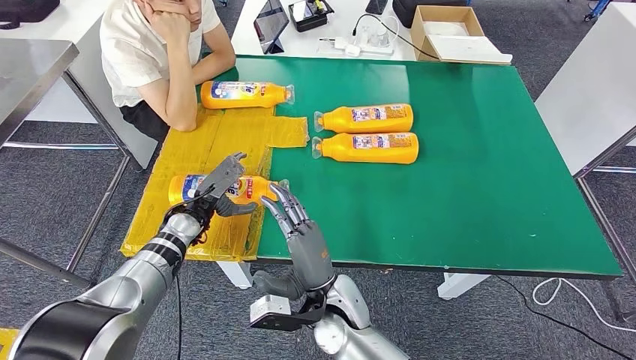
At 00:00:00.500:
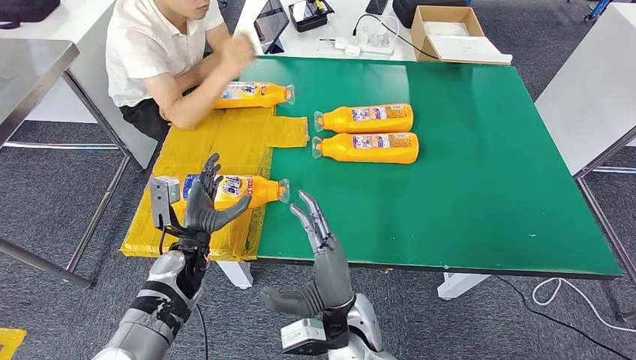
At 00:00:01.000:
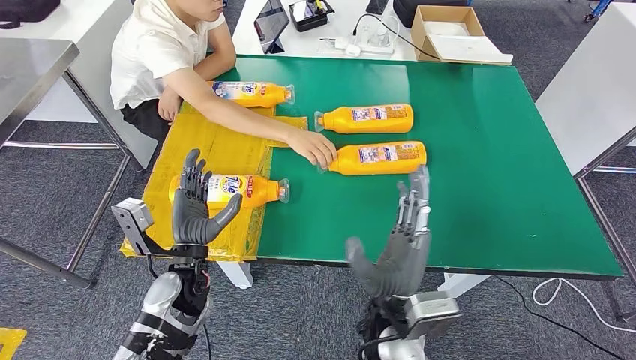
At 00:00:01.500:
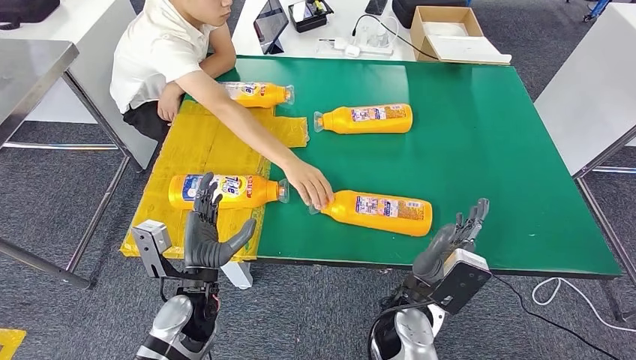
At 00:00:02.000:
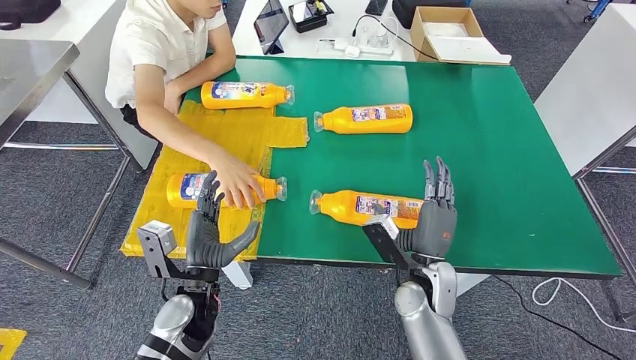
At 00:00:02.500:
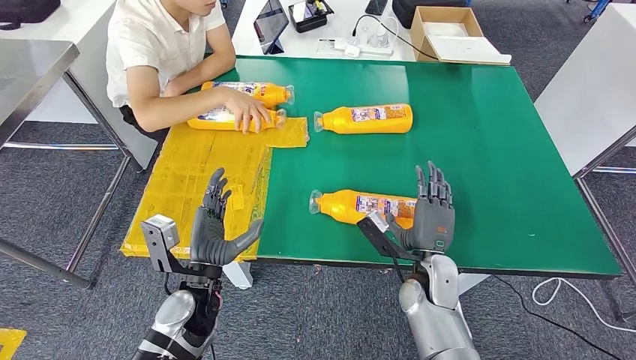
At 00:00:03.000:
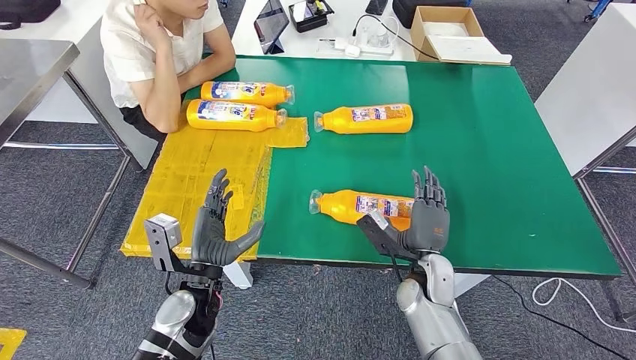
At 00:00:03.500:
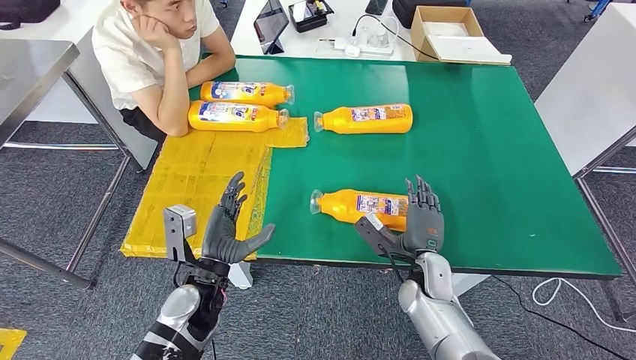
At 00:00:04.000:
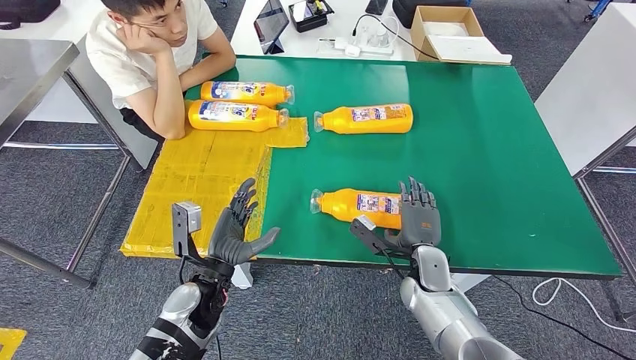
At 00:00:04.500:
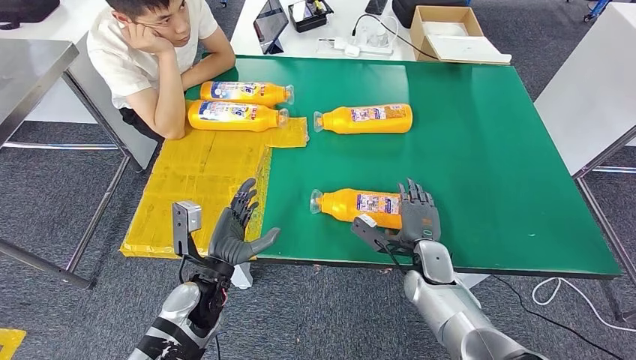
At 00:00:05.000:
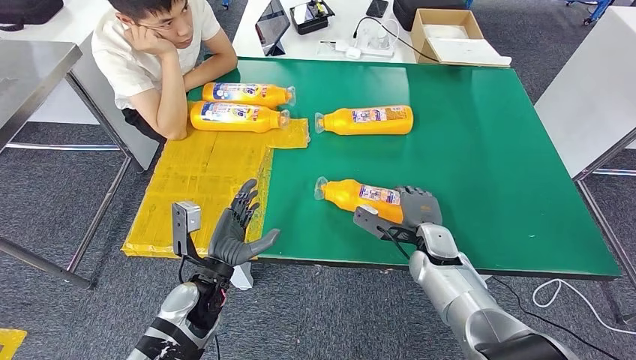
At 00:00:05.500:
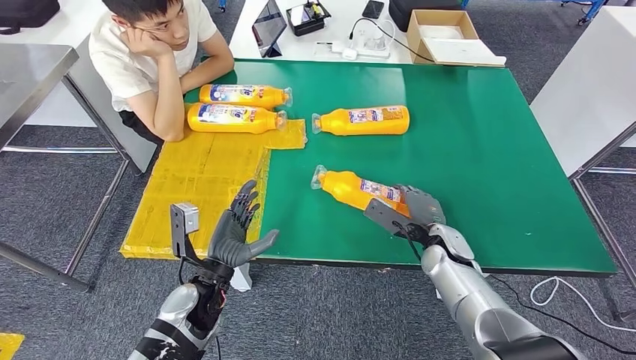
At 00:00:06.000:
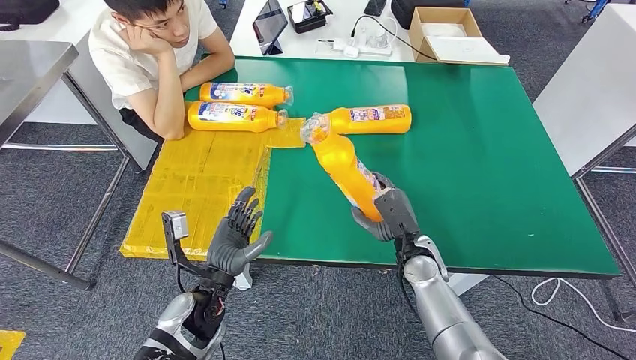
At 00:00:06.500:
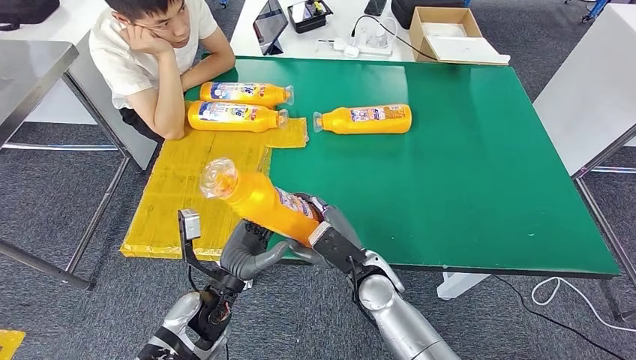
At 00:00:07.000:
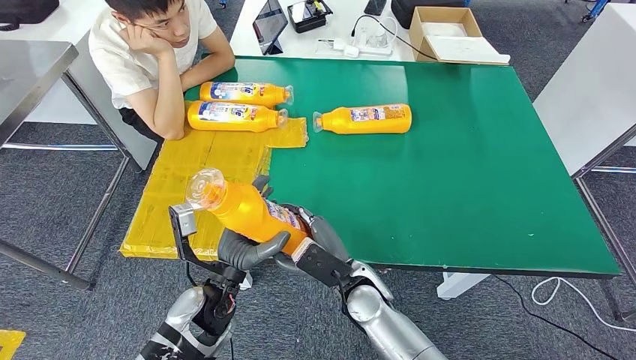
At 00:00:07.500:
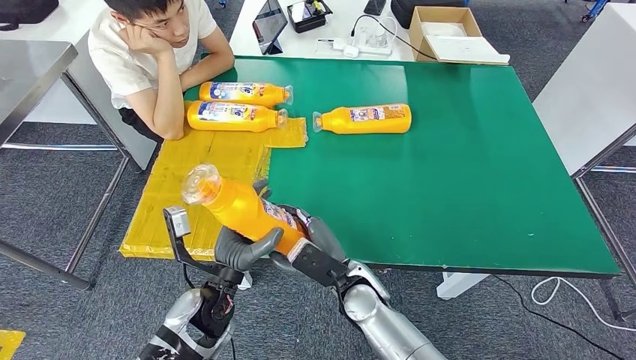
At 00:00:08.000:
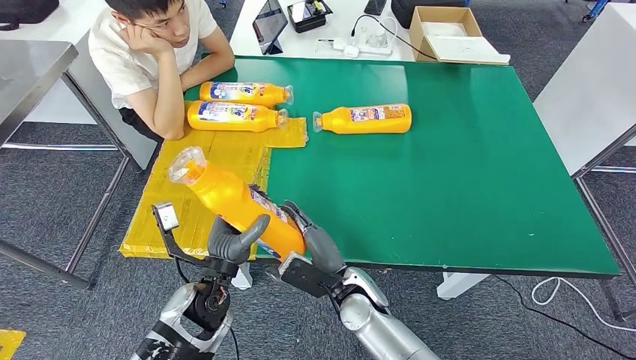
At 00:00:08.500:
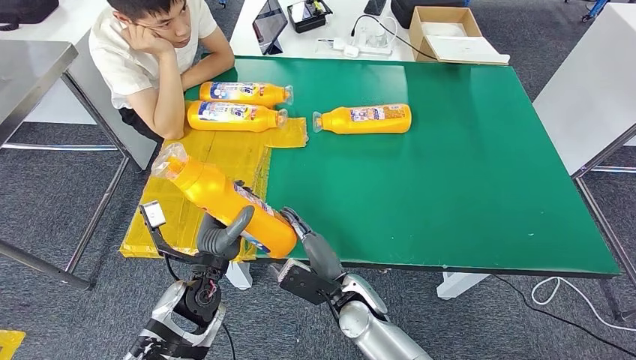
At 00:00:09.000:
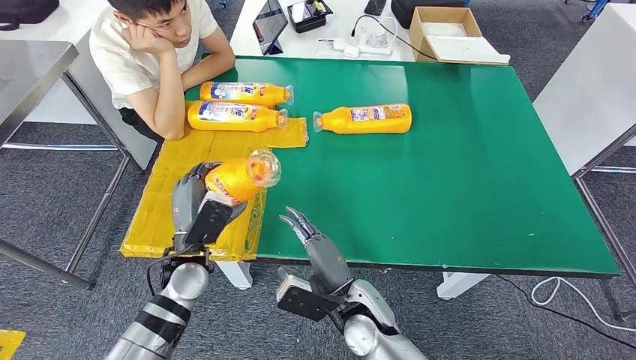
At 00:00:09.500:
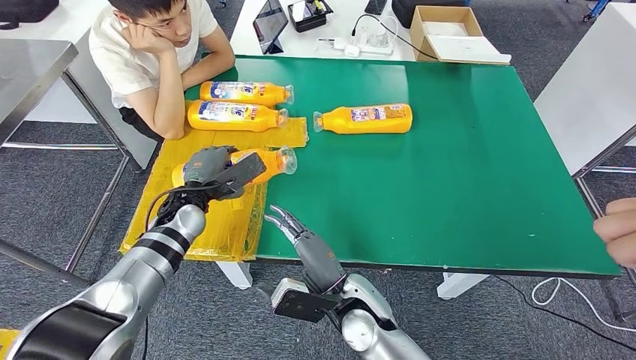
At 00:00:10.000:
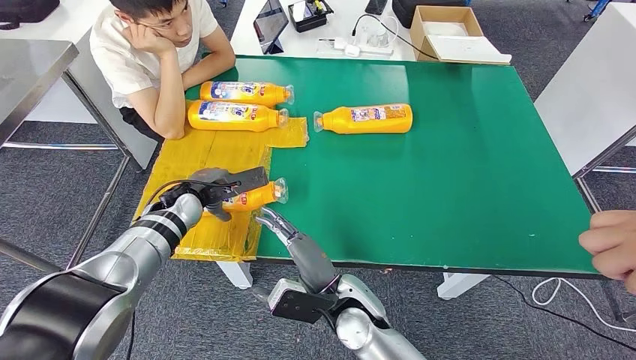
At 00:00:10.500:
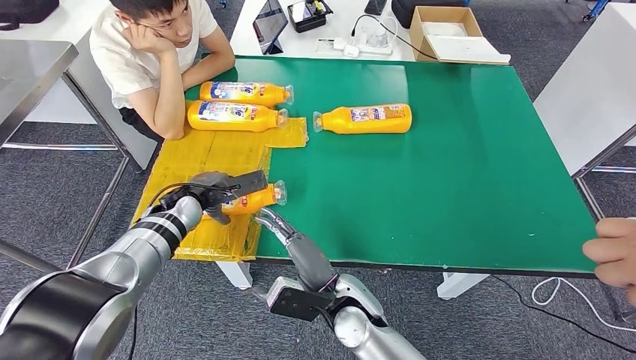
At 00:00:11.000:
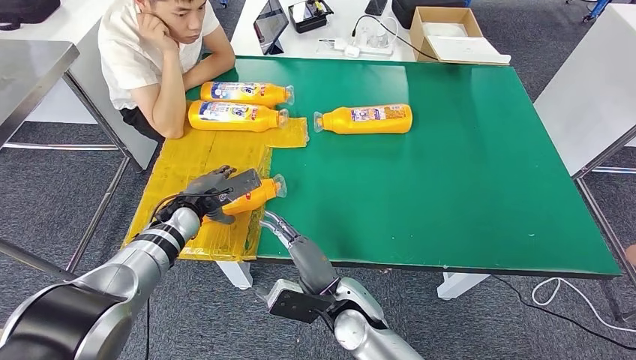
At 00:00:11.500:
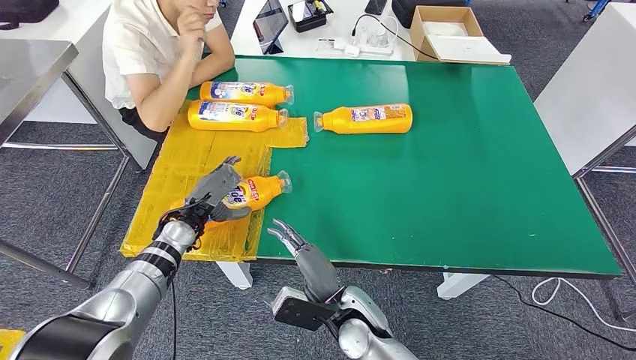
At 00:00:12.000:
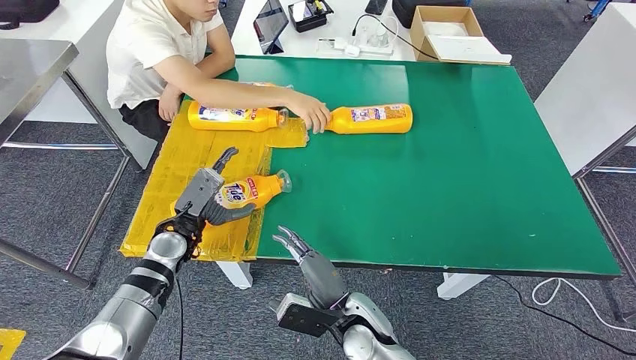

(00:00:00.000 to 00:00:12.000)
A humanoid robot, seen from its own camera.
Step, 00:00:02.000 - 00:00:06.000: Pick up the fast-moving consumer goods bottle from the table.
00:00:02.000 - 00:00:04.000: The right hand changes place by about 5 cm.
00:00:06.000 - 00:00:08.000: The right hand is displaced to the left and backward by some 15 cm.
00:00:08.000 - 00:00:10.000: The left hand is displaced forward and to the left by roughly 20 cm.
00:00:10.000 - 00:00:12.000: The left hand goes roughly 5 cm backward.

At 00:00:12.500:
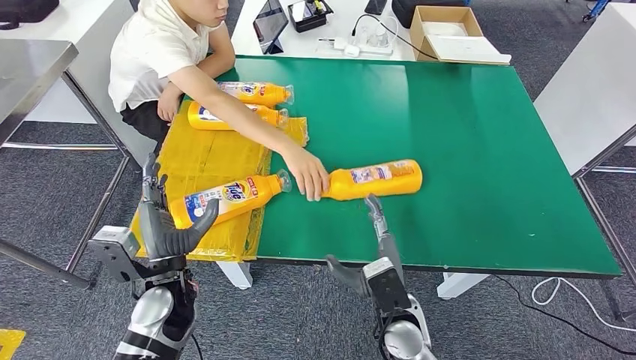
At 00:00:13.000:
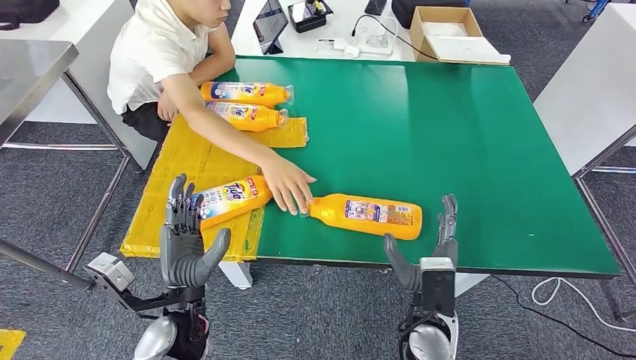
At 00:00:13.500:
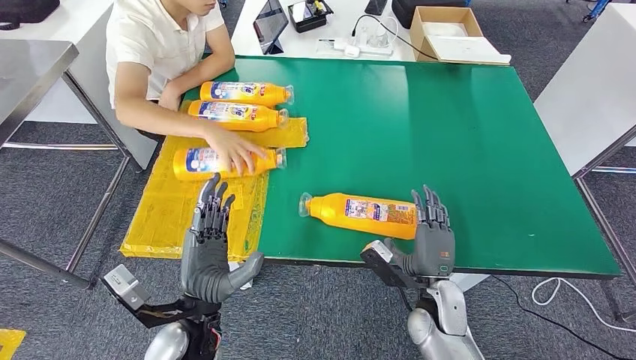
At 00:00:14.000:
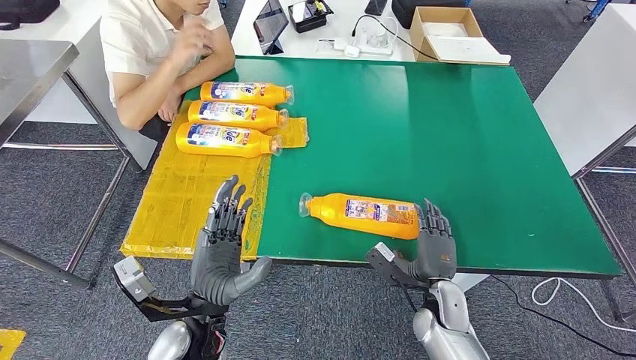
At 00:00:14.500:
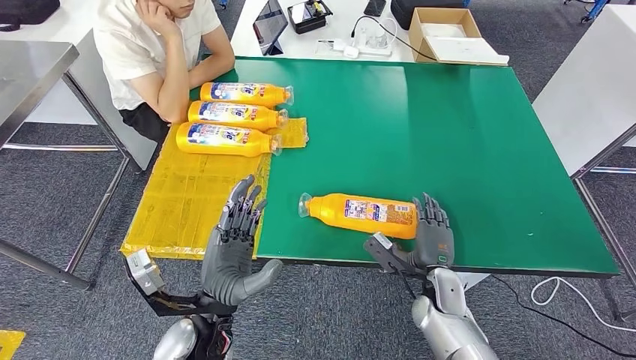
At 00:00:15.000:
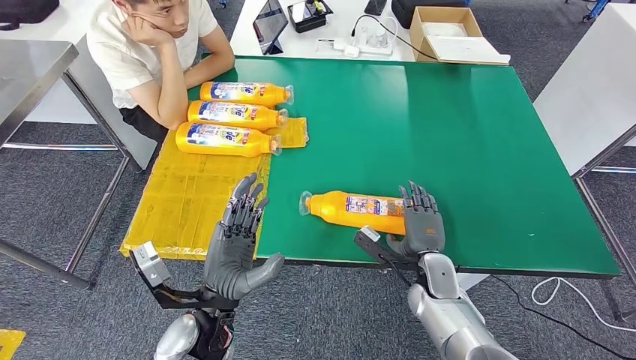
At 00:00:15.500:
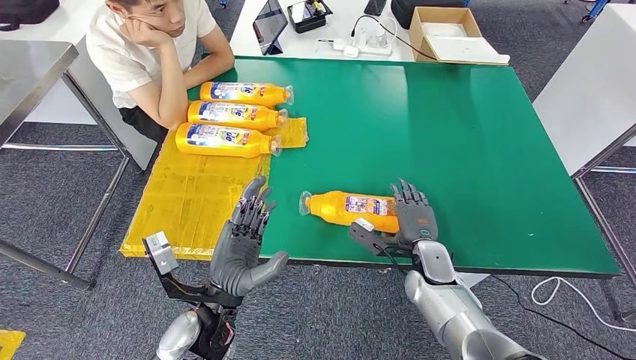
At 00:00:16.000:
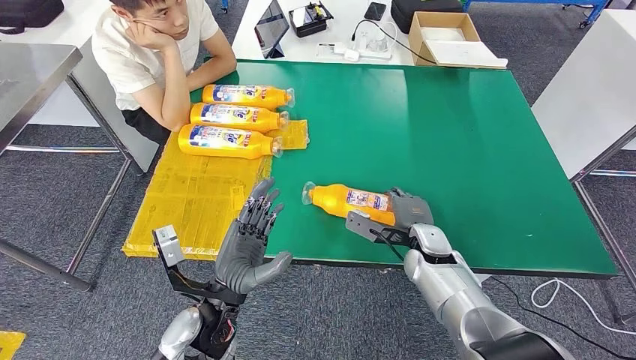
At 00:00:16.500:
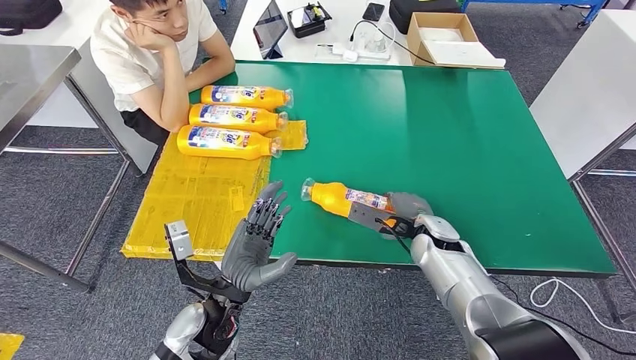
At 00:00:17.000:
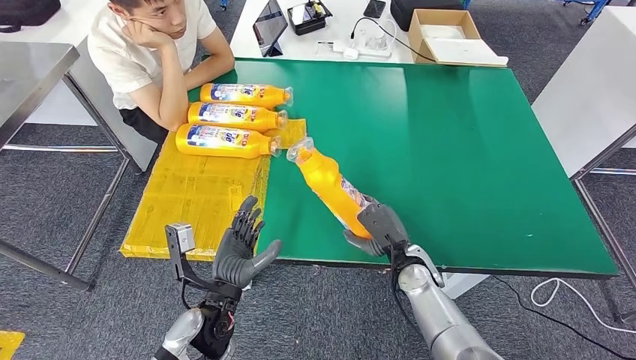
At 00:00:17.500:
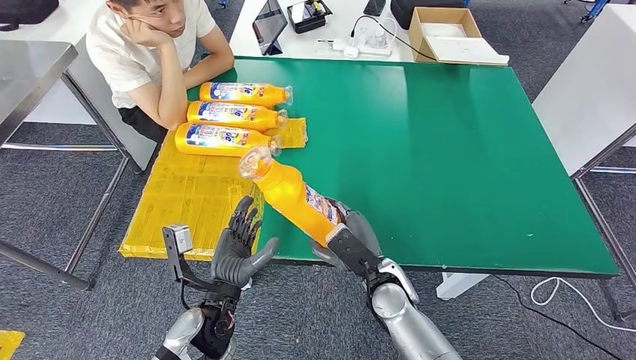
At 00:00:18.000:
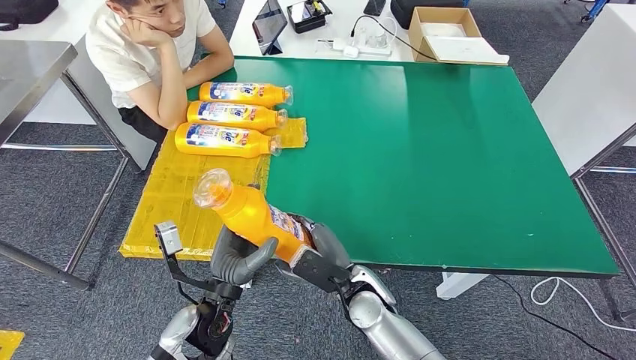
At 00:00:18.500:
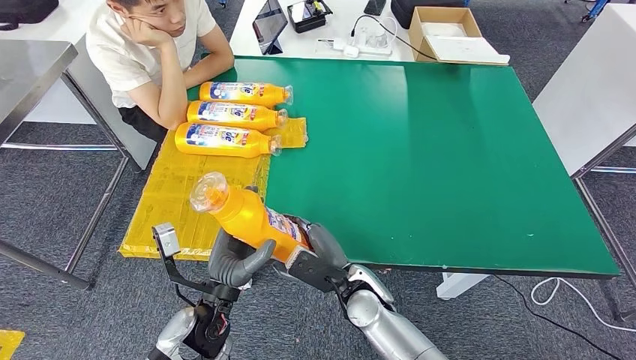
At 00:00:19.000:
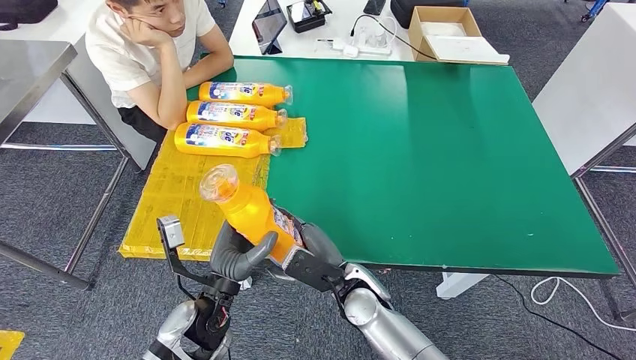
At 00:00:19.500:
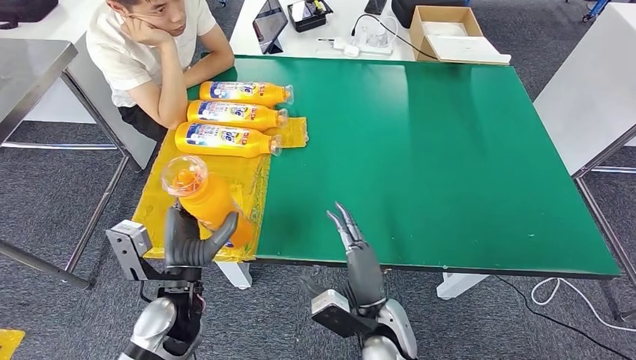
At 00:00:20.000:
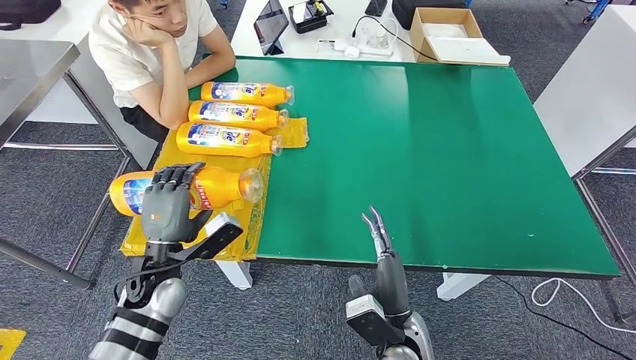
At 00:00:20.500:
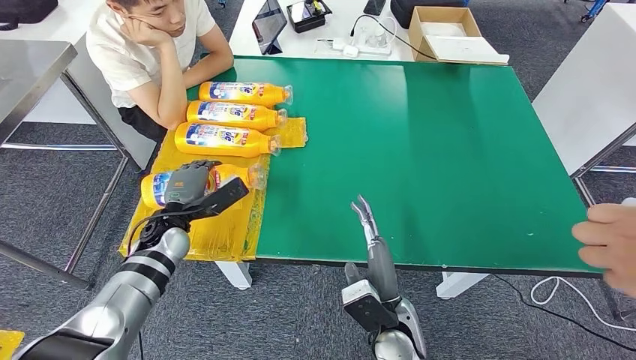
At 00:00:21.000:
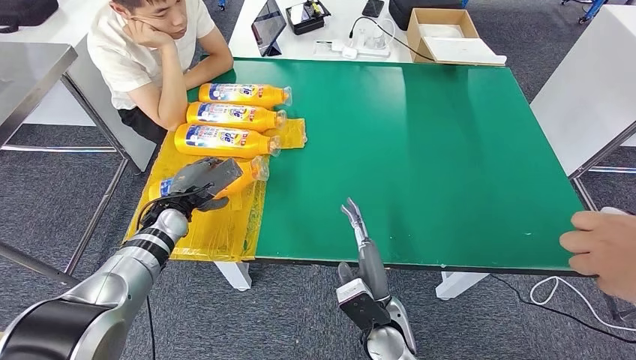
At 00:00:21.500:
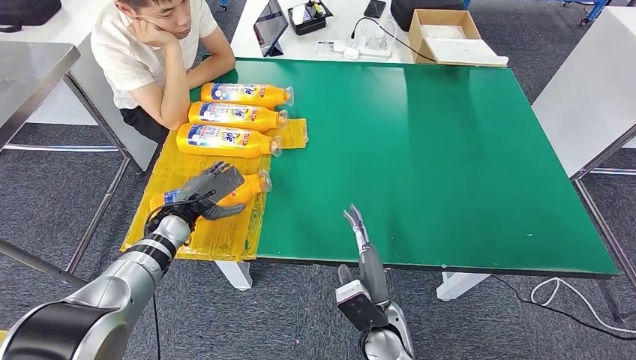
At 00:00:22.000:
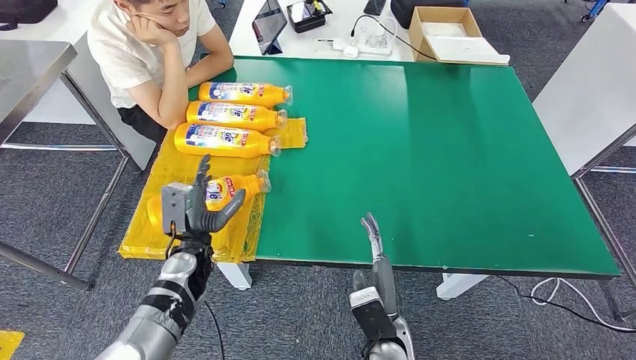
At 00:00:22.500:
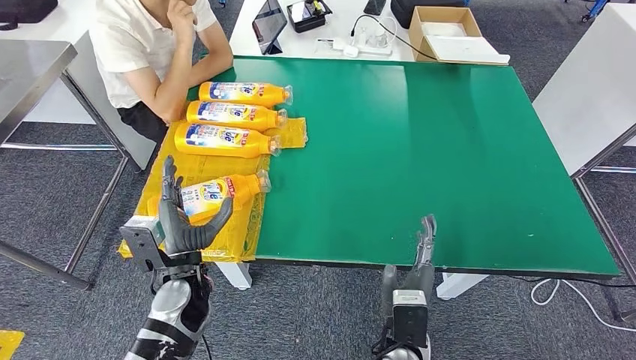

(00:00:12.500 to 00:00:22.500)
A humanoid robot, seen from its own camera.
Step, 00:00:13.500 - 00:00:16.500: Pick up the fast-moving consumer goods bottle from the table.
Step, 00:00:17.500 - 00:00:22.500: Flip the fast-moving consumer goods bottle to the front side.
00:00:18.500 - 00:00:20.500: The right hand is displaced backward and to the right by some 5 cm. Meanwhile the left hand moves forward and to the left, about 20 cm.
00:00:20.500 - 00:00:22.500: The left hand heads backward and to the right, covering about 15 cm.
